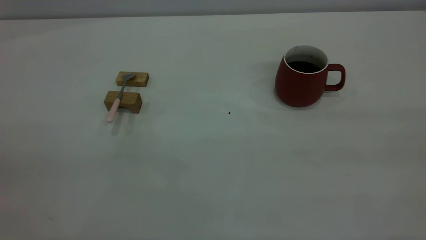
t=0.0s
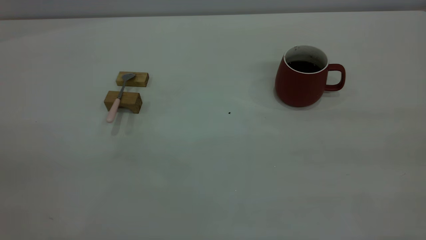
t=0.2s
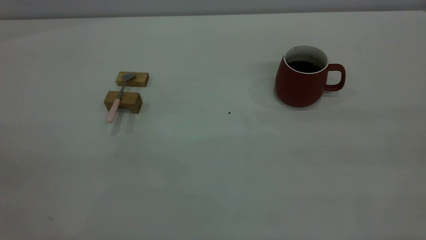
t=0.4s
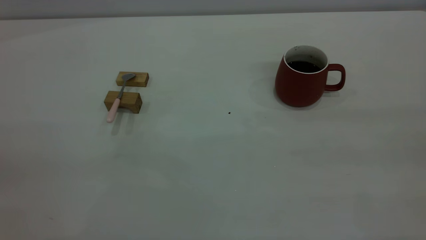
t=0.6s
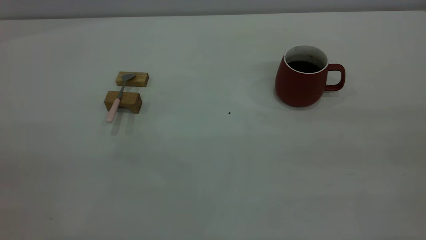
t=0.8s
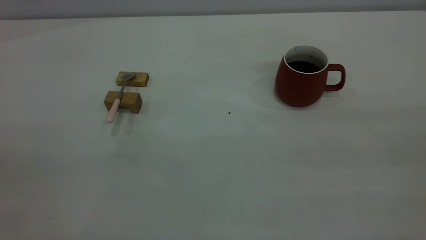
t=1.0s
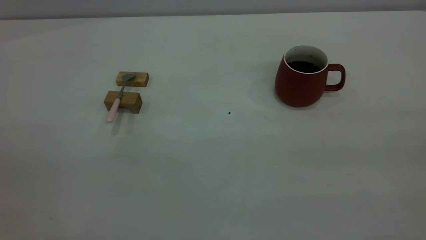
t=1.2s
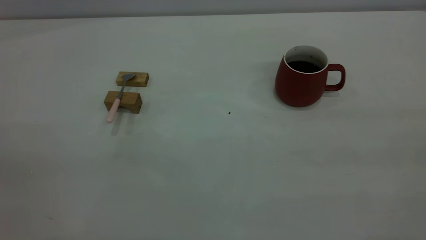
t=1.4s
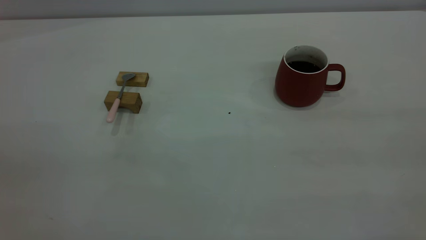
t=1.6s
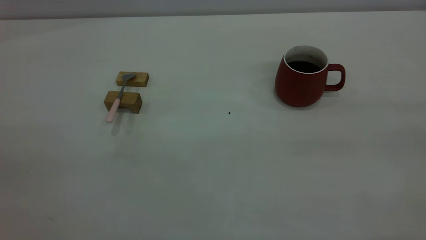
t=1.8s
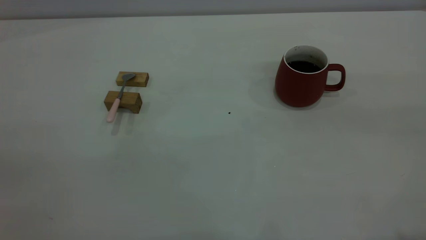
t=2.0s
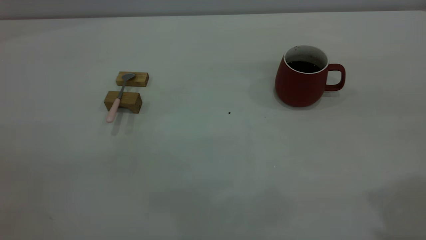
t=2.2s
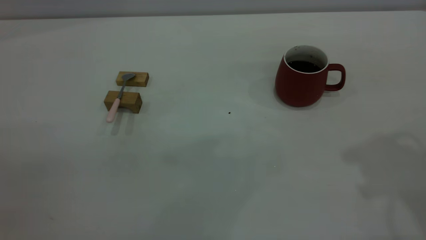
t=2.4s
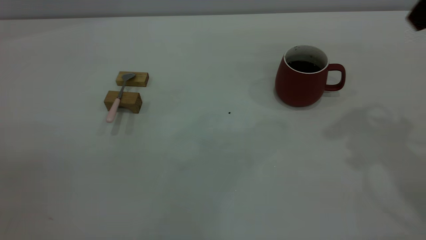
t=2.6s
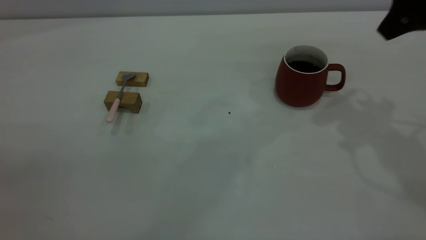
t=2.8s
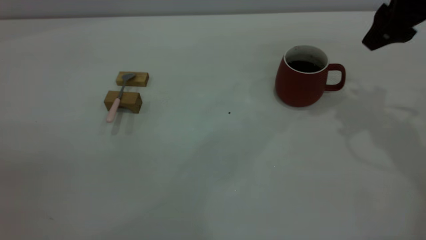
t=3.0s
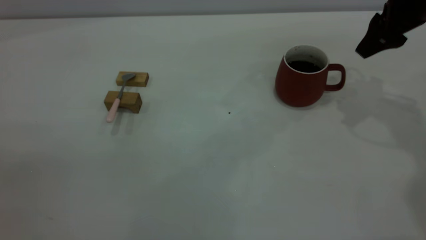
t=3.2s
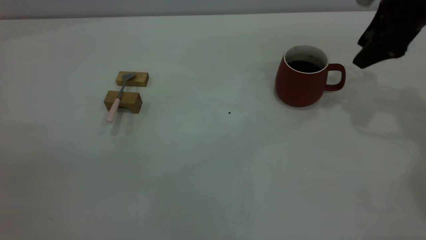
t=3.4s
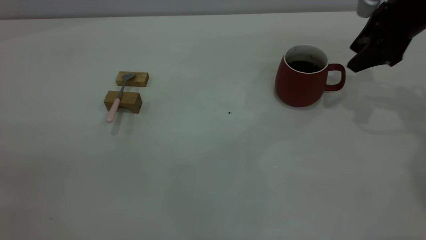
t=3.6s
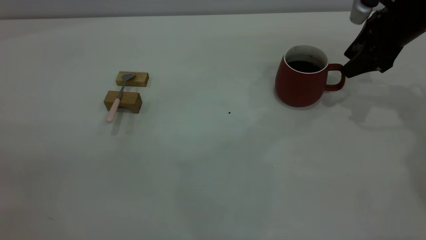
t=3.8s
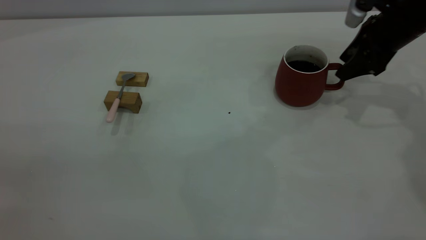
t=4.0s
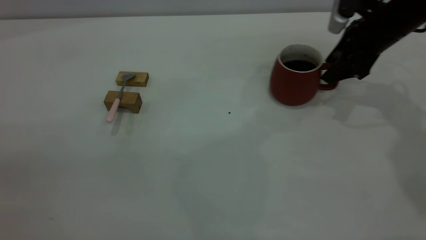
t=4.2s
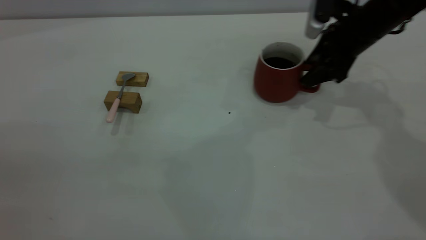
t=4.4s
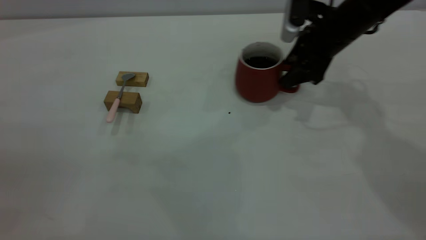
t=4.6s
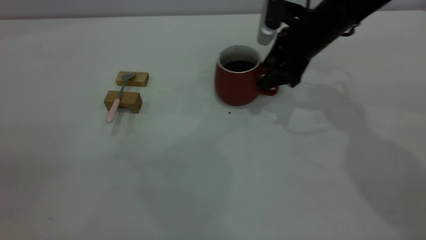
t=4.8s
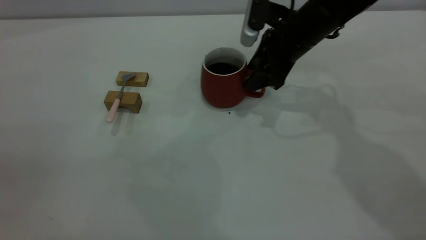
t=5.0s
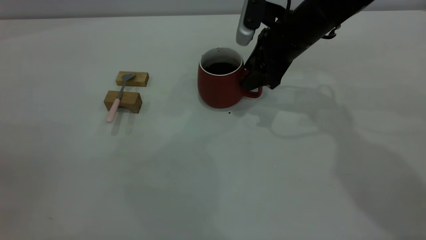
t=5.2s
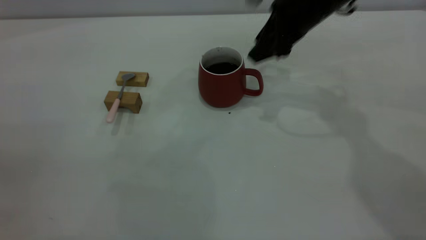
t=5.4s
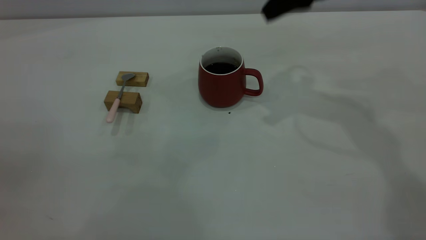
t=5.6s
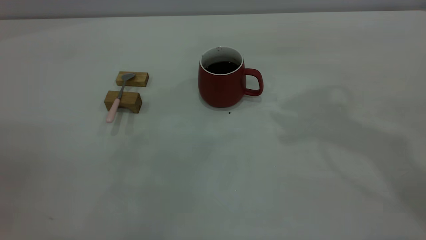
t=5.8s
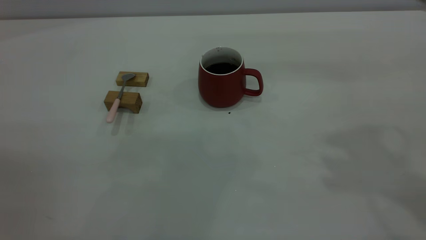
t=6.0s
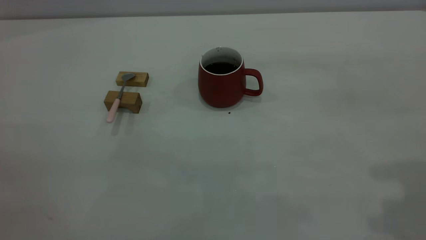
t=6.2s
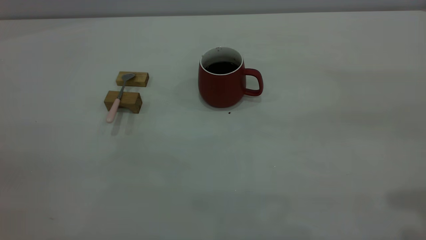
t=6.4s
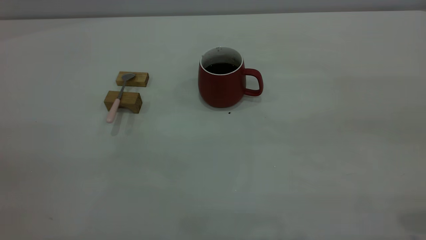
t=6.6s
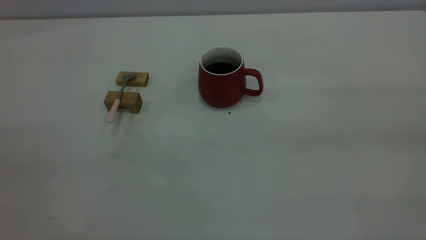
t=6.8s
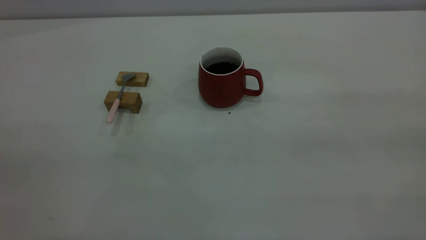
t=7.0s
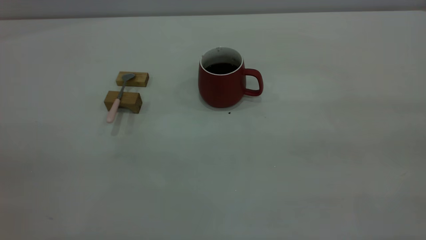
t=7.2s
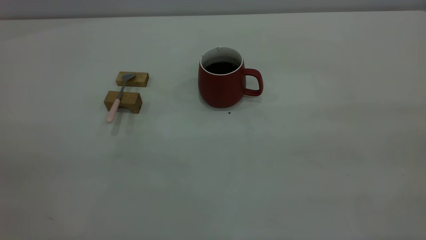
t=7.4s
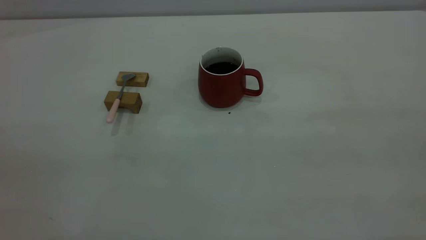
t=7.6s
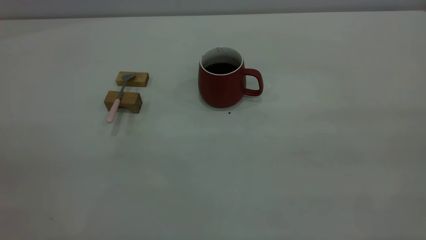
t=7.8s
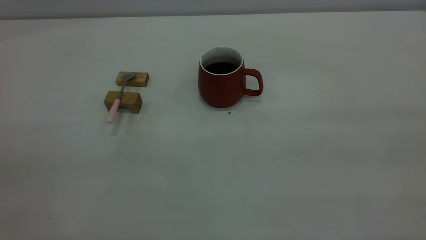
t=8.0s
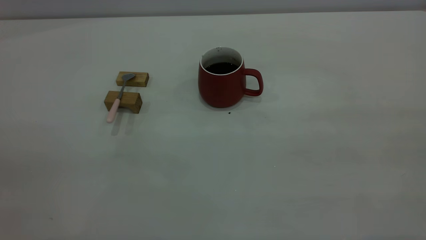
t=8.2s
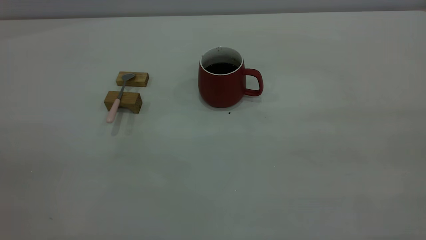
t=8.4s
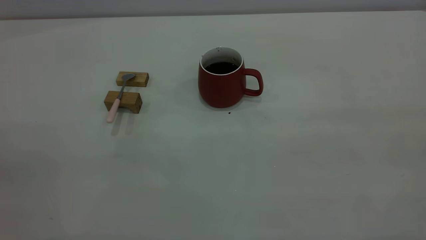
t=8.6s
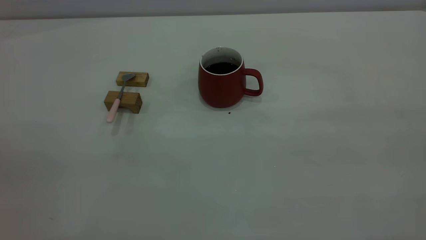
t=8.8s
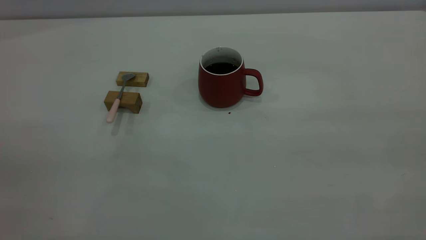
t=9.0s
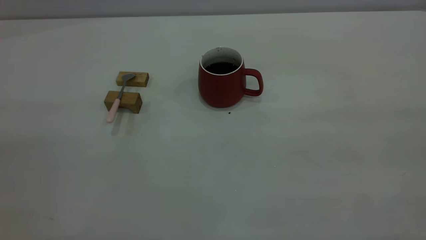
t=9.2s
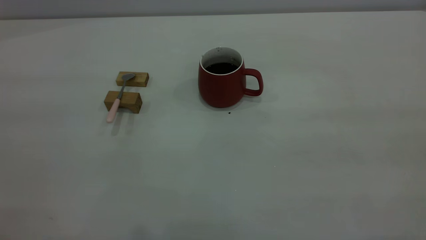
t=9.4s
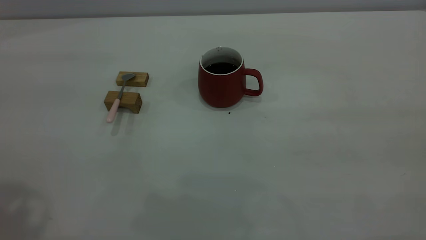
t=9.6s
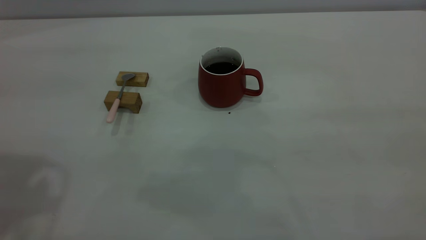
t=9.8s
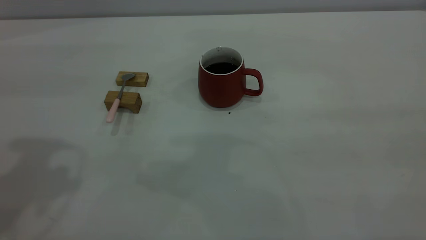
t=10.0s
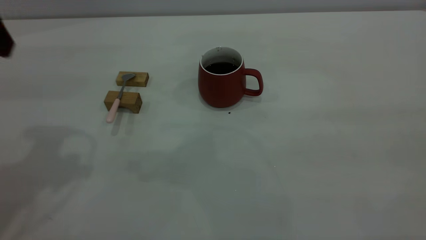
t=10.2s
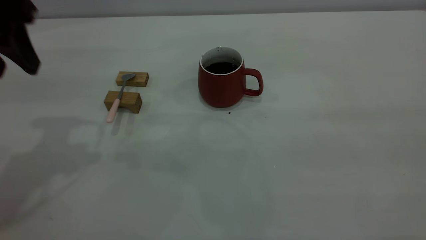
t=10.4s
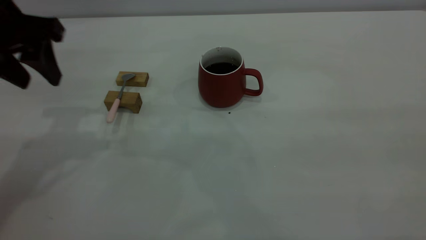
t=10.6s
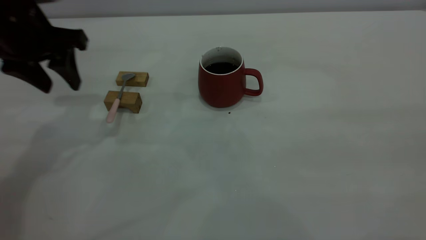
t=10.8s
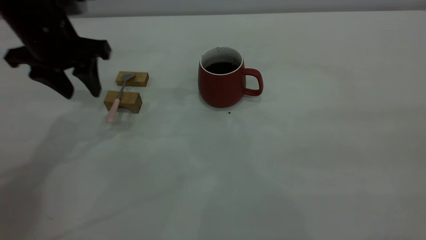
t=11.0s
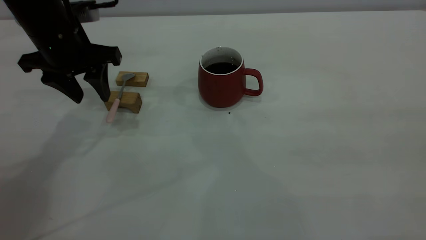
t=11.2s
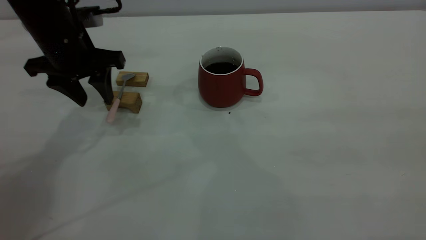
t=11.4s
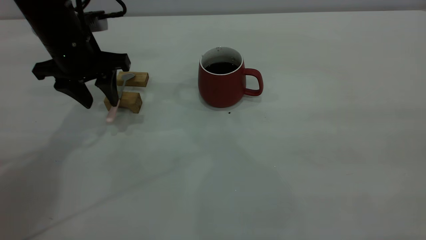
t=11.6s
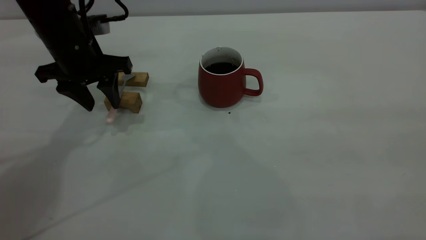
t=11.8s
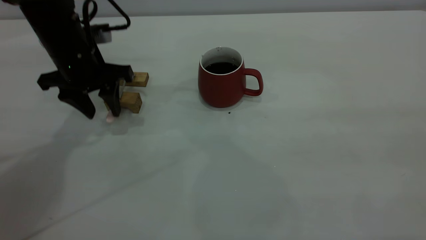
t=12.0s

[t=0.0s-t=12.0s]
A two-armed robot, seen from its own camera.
Step, t=0.0s to t=5.4s: Move the cup with coffee to the center of view.
t=1.6s to t=3.0s: The right gripper moves forward, roughly 35 cm, and opens.
t=3.0s to t=4.4s: The right gripper is displaced downward and forward by roughly 15 cm.
t=4.4s to t=6.0s: The right gripper is displaced upward and backward by some 30 cm.
t=7.6s to t=9.0s: Neither gripper changes place.
t=9.0s to t=10.4s: The left gripper goes about 30 cm forward.
t=10.4s to t=12.0s: The left gripper goes some 15 cm downward and forward.

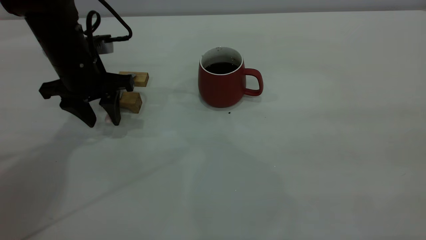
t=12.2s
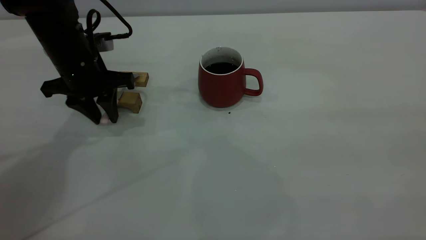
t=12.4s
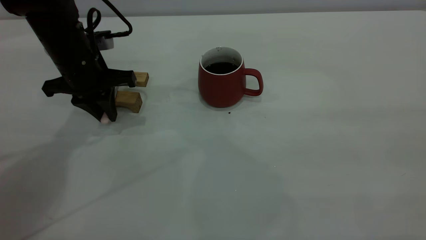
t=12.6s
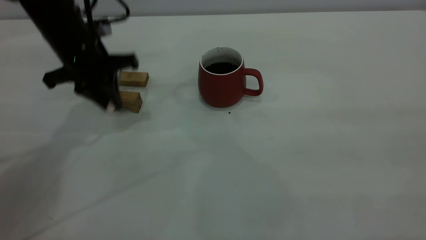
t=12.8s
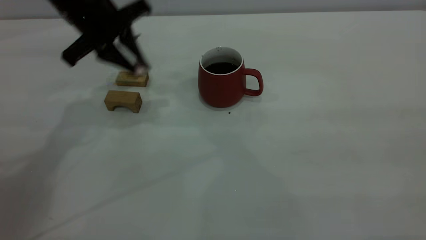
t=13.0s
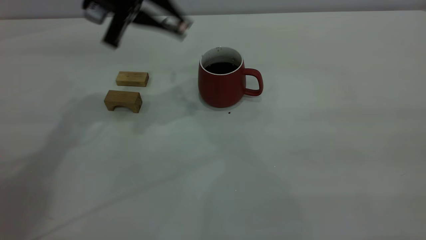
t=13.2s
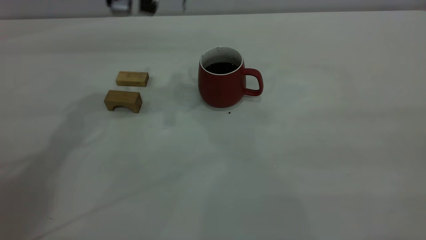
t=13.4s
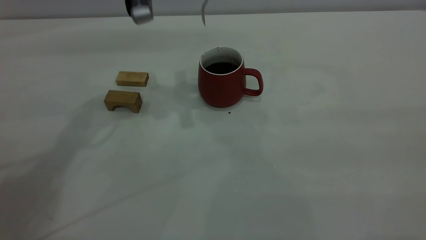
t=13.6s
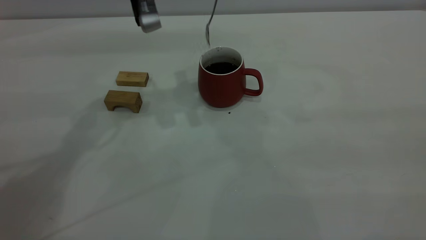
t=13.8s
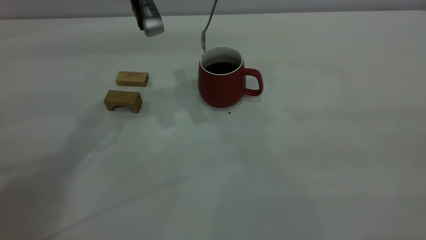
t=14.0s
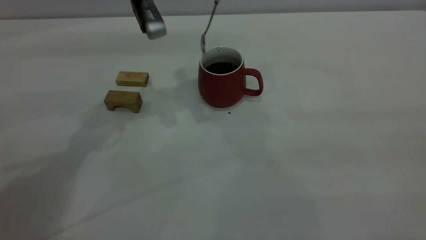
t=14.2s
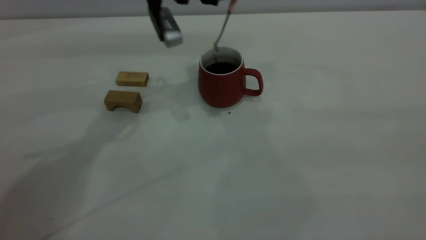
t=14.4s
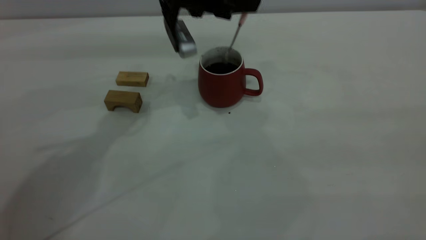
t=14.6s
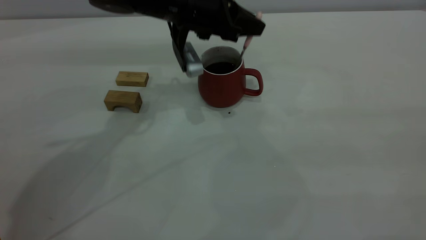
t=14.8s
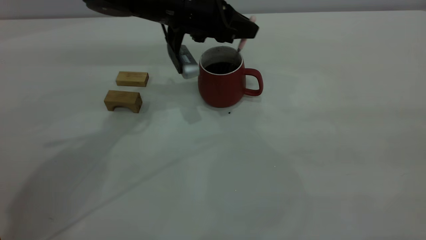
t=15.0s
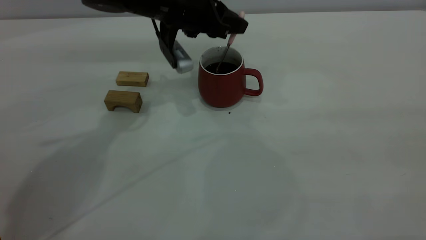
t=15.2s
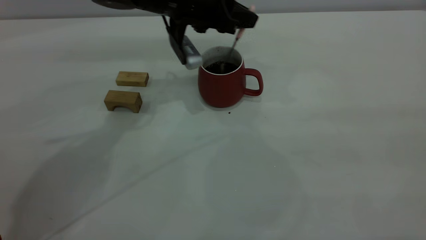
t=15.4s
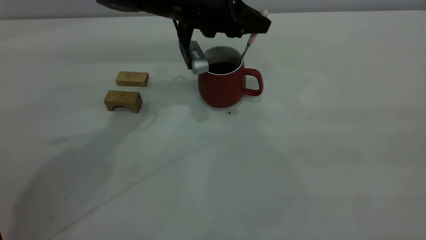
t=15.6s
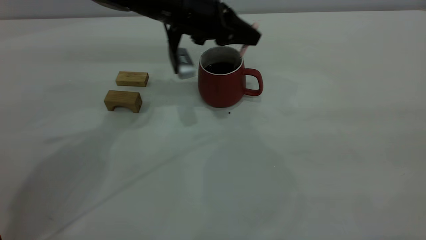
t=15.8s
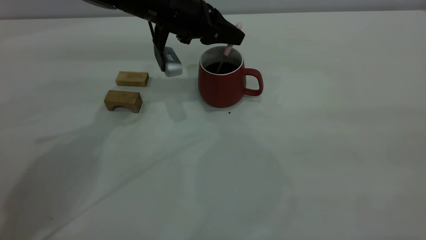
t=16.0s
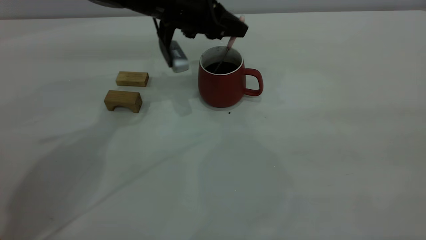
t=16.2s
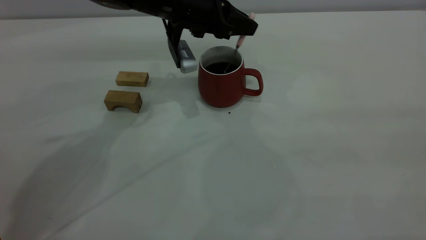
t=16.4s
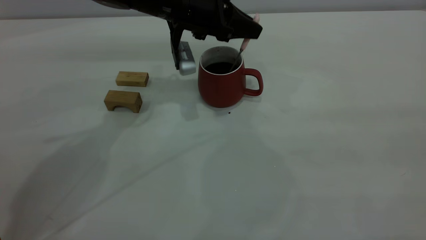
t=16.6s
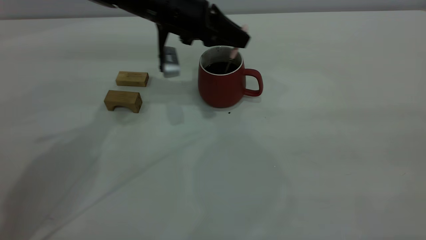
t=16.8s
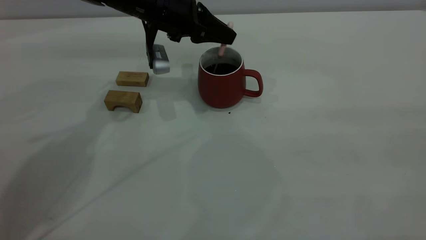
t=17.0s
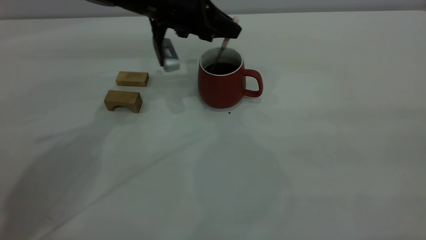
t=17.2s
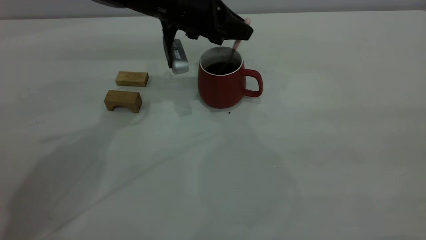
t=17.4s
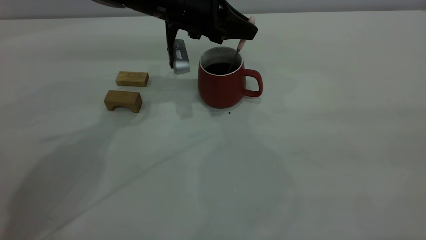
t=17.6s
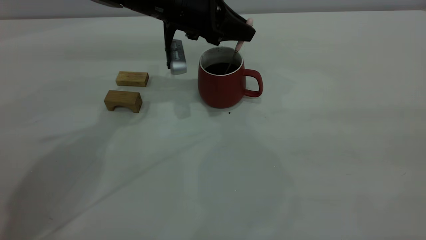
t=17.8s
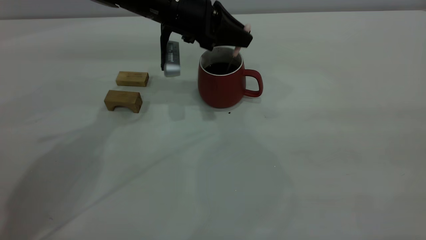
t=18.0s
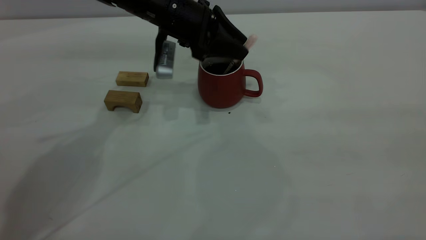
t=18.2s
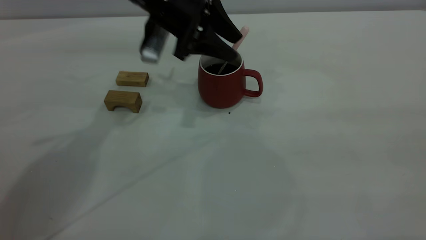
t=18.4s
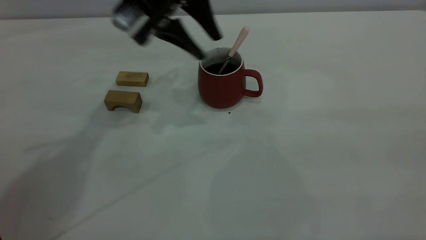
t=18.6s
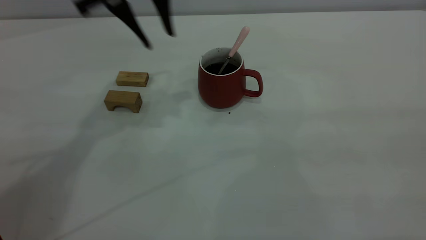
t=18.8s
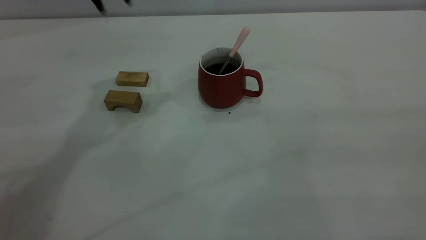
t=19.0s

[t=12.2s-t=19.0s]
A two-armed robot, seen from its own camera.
Step, t=13.0s to t=18.4s: Stir the coffee in the cup.
t=12.2s to t=13.6s: The left gripper goes roughly 15 cm upward and to the right, and closes its fingers.
t=13.6s to t=15.0s: The left gripper moves downward, about 10 cm.
t=15.0s to t=17.6s: The grippers make only small movements.
t=17.6s to t=19.0s: The left gripper shifts approximately 20 cm upward, and opens up.
